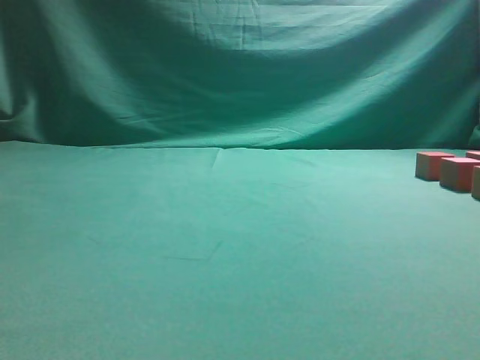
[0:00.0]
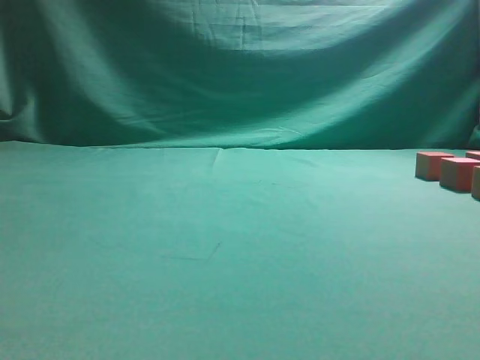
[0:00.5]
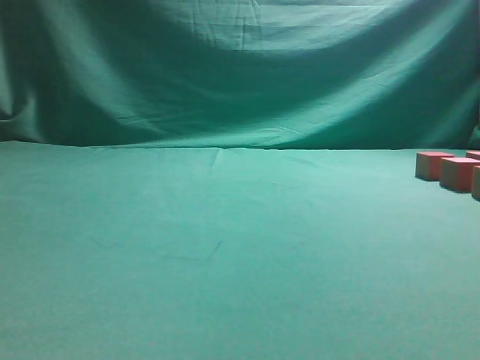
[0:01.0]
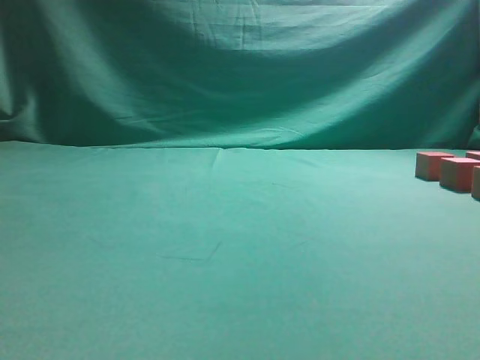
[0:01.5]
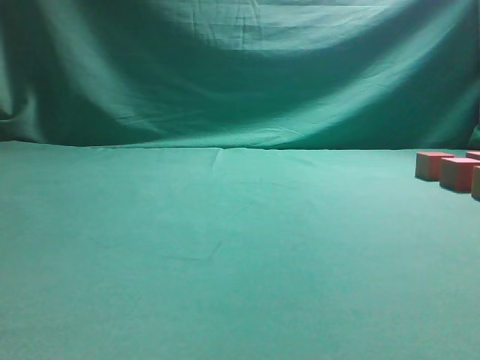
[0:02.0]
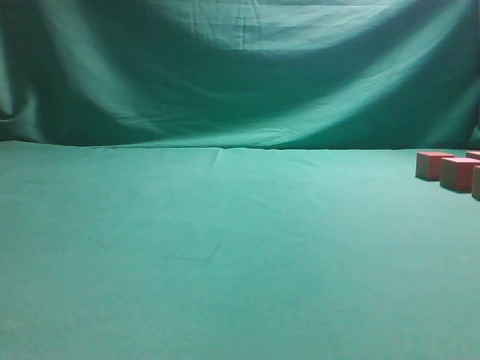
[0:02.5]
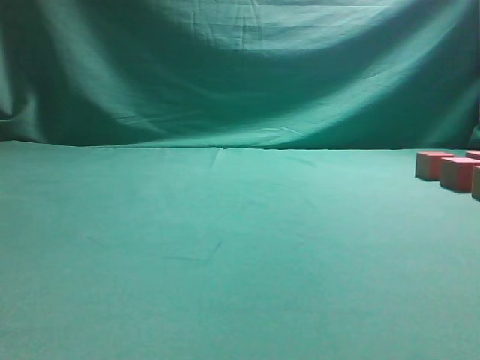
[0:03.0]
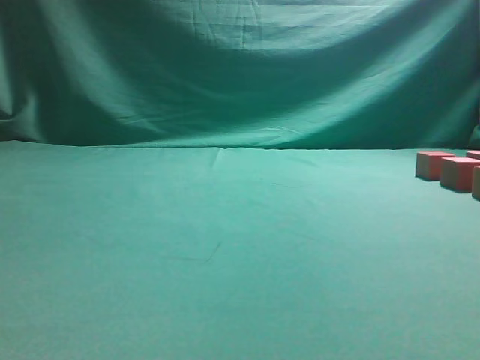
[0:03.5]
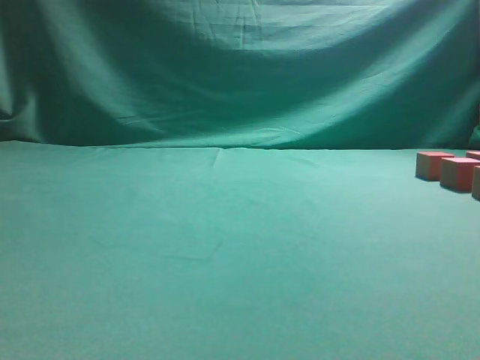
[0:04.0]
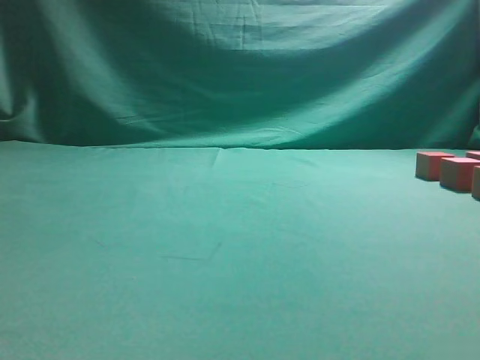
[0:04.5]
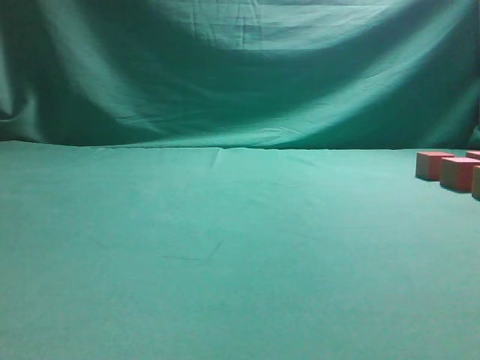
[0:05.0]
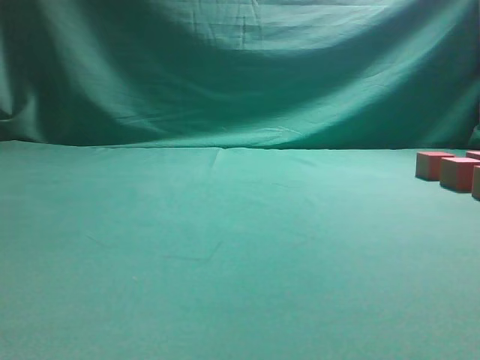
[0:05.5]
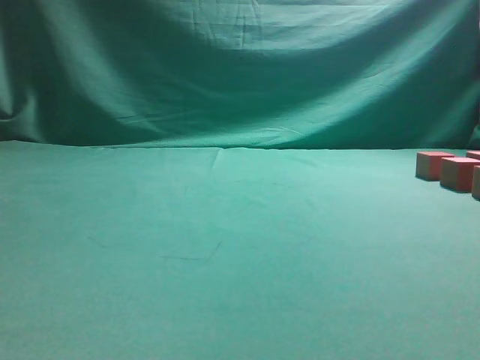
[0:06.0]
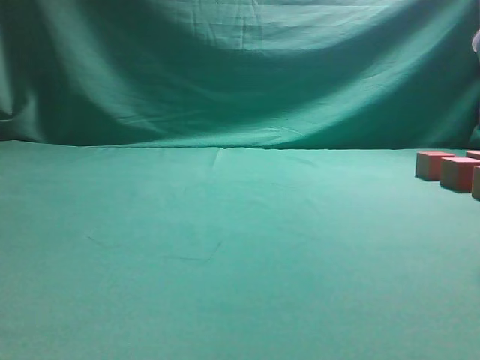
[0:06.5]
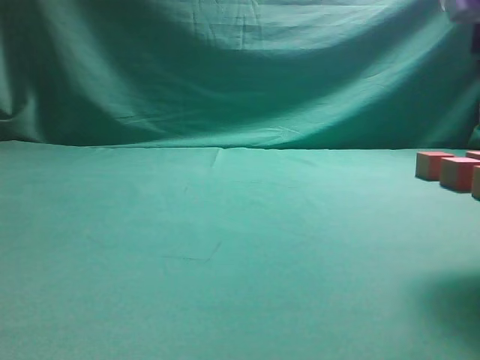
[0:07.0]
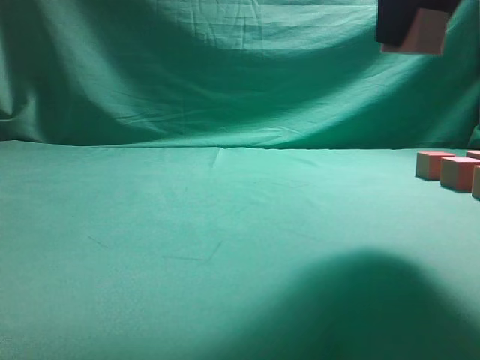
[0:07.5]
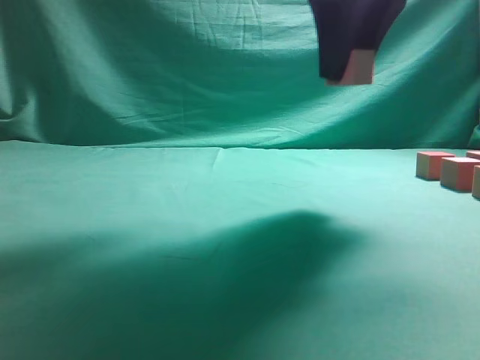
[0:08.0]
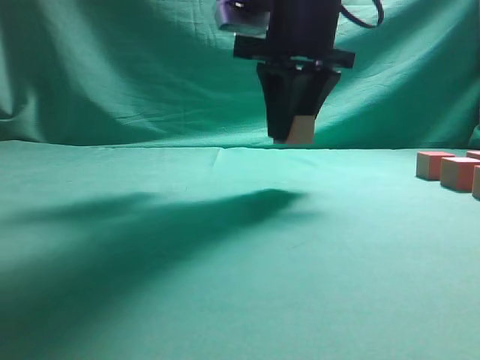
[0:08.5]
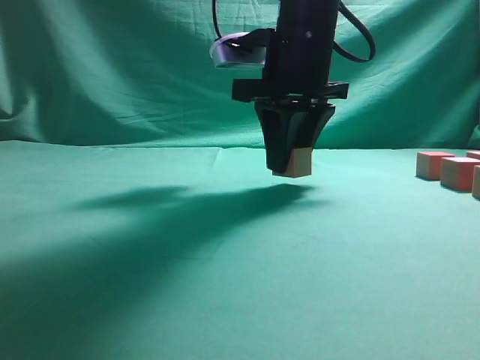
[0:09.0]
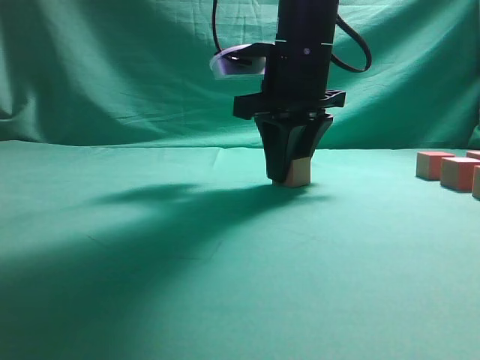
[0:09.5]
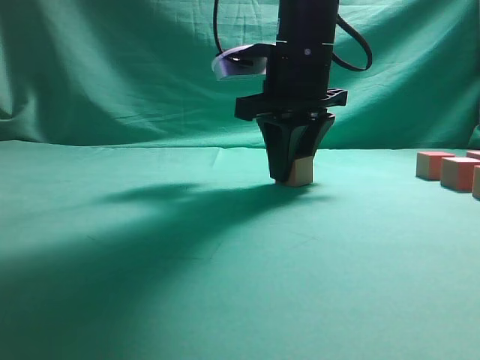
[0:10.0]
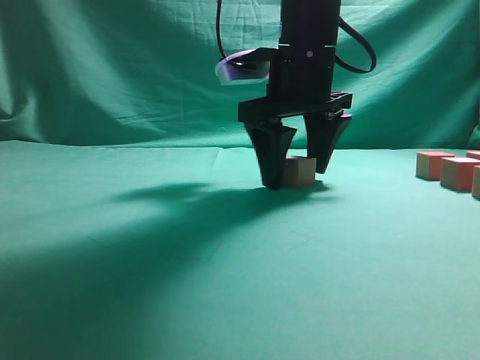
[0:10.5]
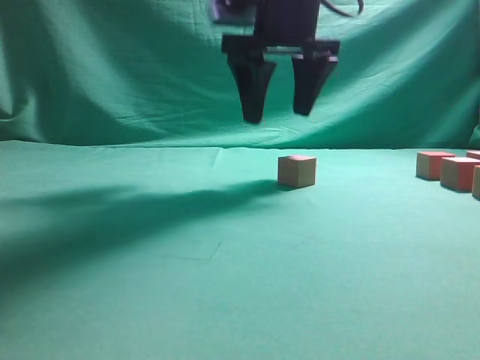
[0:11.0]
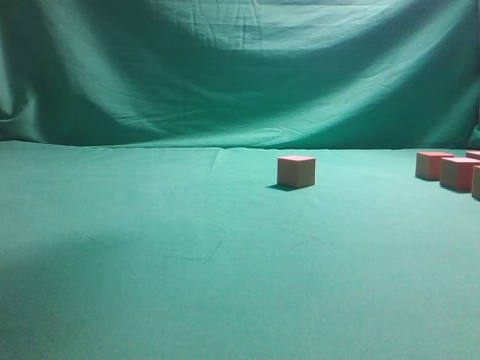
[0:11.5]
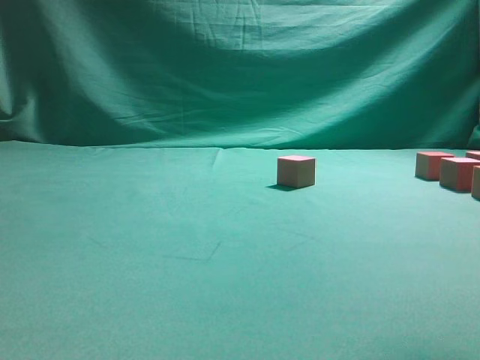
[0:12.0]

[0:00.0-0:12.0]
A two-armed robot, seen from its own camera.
Task of the whole recording: pick up the multiple cubes in two columns one by one and place them in another position on the table.
Step, 0:07.5 to 0:11.0: Place the block at the correct position to assemble the letter S.
0:06.0 to 0:08.0: The right gripper moves to the left, forward and upward, about 20 cm, and closes.
0:08.0 to 0:10.0: The right gripper heads downward and forward, covering about 10 cm.
0:10.0 to 0:12.0: The right gripper moves upward, to the right and backward, approximately 25 cm, and opens up.

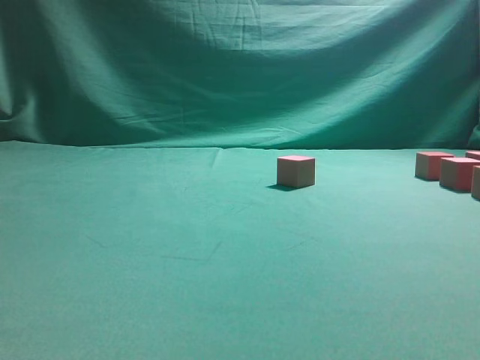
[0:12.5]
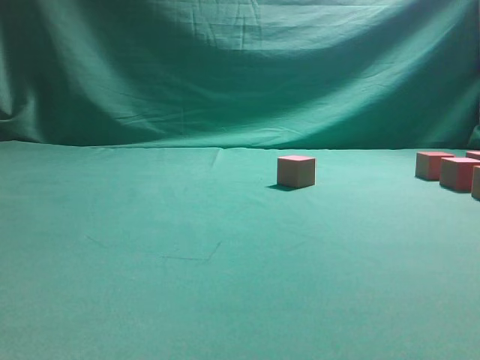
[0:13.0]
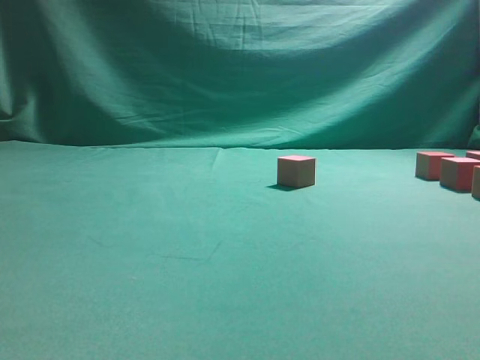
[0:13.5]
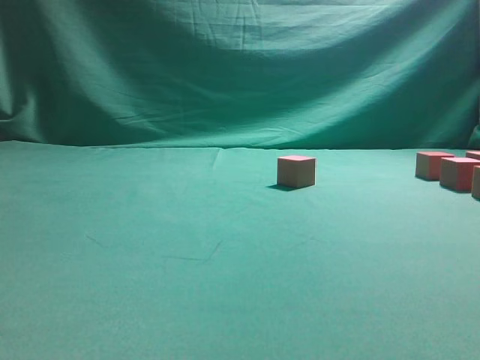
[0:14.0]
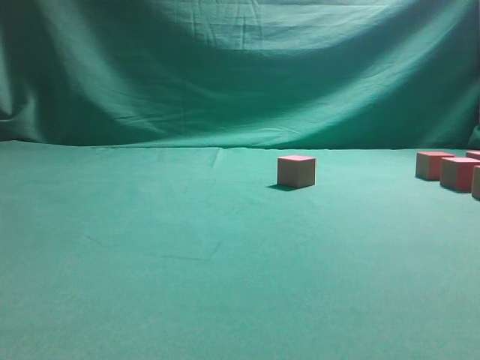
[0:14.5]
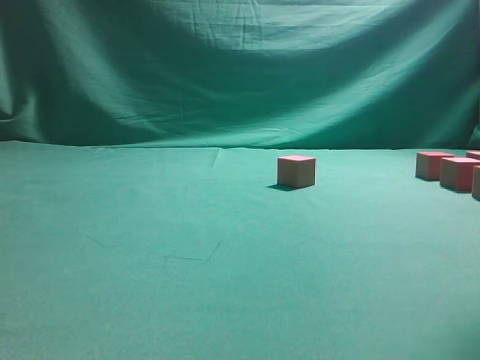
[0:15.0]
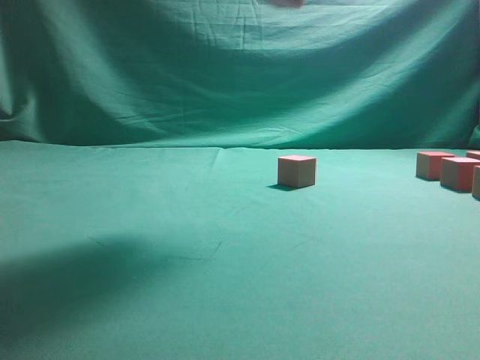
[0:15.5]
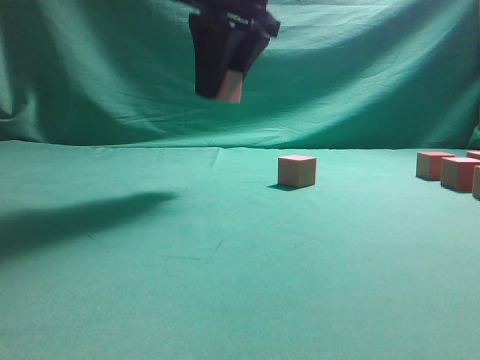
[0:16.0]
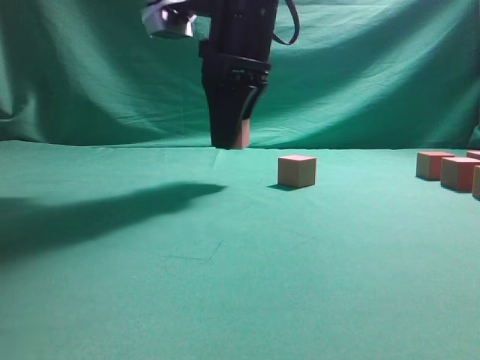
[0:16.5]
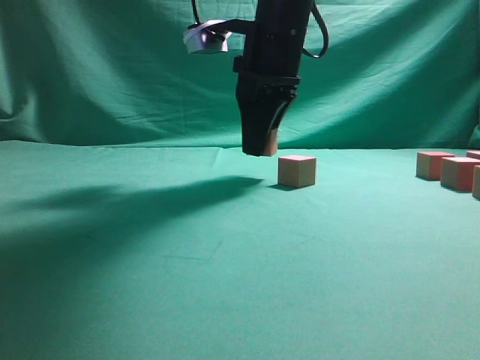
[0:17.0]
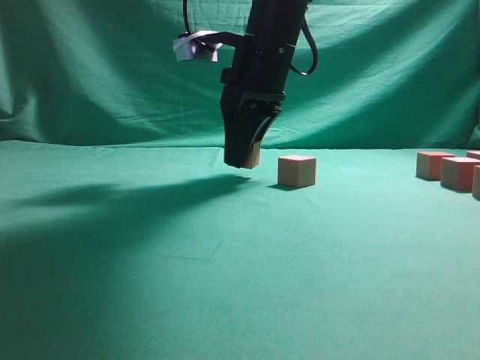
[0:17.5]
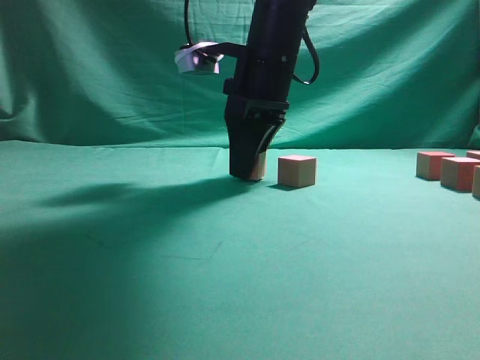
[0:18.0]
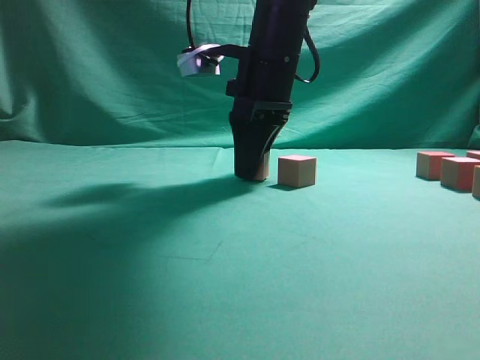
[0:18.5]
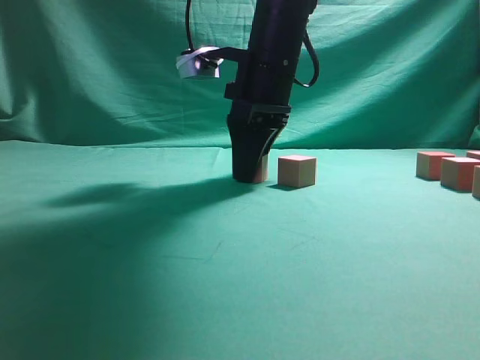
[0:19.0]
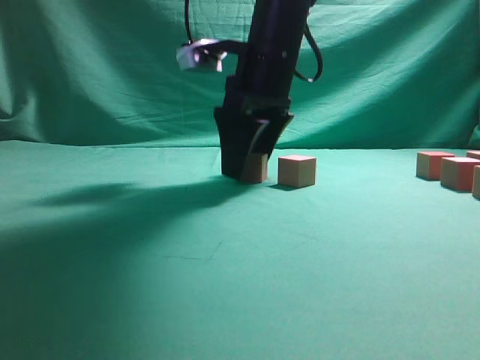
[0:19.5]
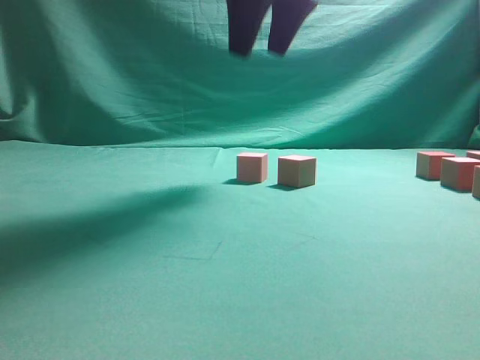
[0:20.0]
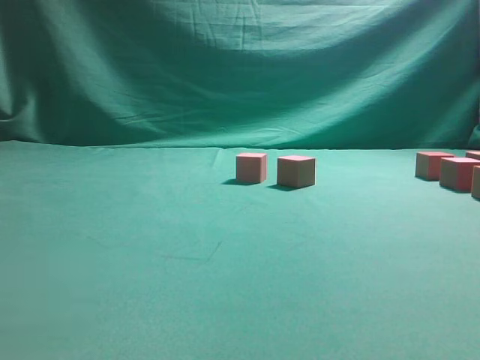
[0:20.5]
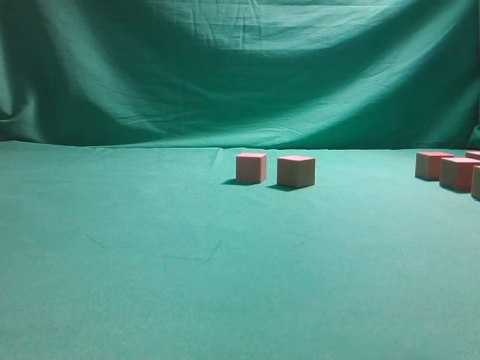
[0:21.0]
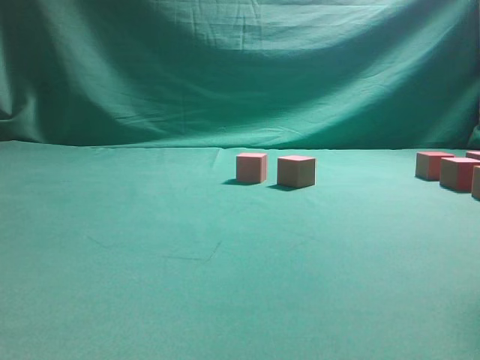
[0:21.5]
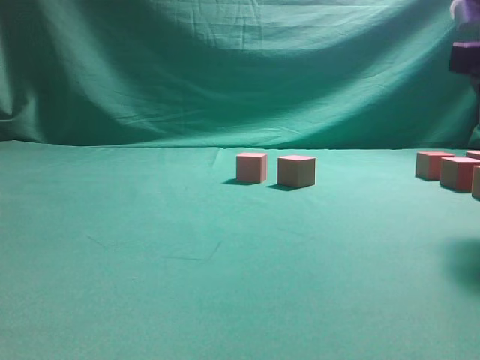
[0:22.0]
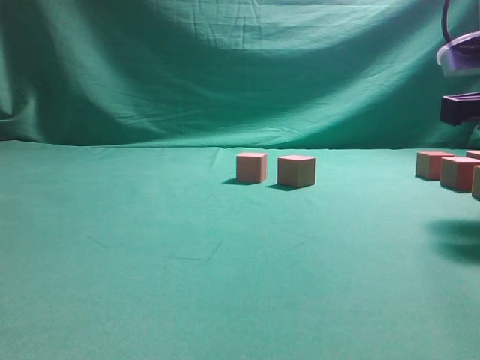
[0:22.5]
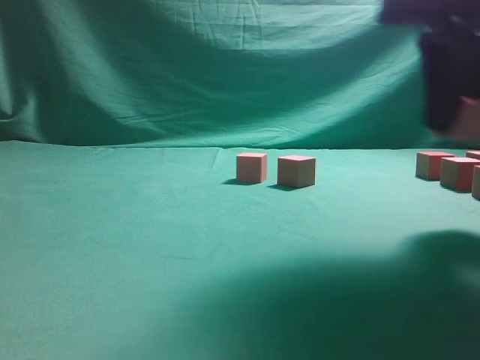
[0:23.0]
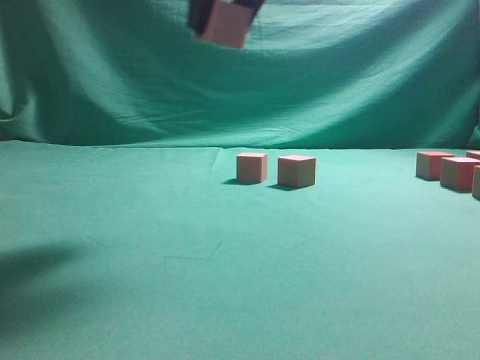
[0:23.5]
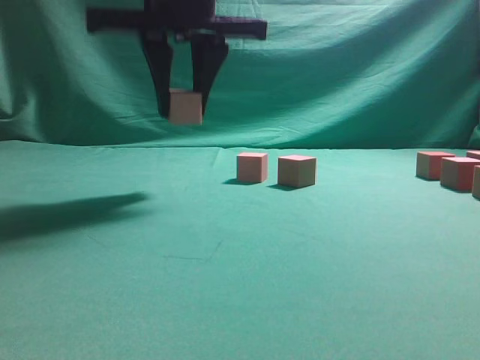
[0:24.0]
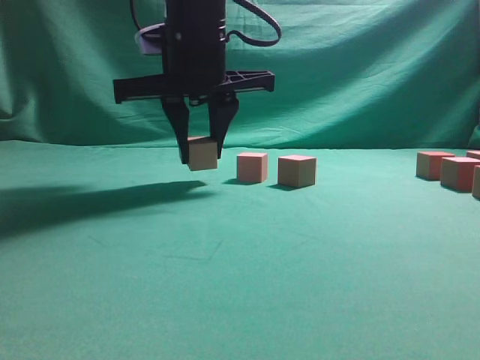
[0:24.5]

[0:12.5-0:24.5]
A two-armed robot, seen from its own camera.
Task of the whole recording: pick up the multiple cubes in two columns one by one and place them in another position on the table.
Step, 0:15.5 to 0:19.5: Place the block at the correct position to assemble the letter S.
Step, 0:20.0 to 0:22.5: Pick up the block on the table.
0:14.5 to 0:16.5: The right gripper shifts approximately 35 cm to the left and forward.
0:16.5 to 0:18.5: The right gripper shifts by some 5 cm.
0:18.5 to 0:20.5: The right gripper travels upward by about 25 cm, and opens its fingers.
0:20.5 to 0:22.5: The right gripper goes some 30 cm downward and to the right, and closes.
0:22.5 to 0:24.5: The right gripper travels to the left by approximately 25 cm.

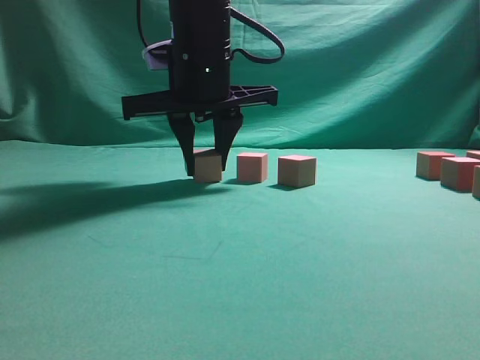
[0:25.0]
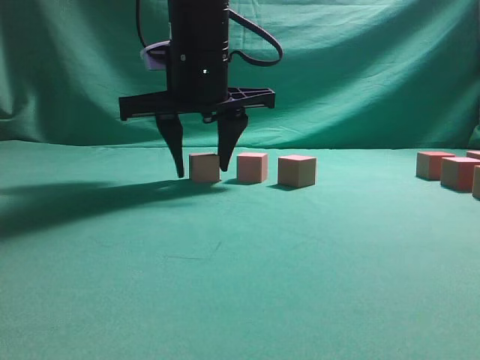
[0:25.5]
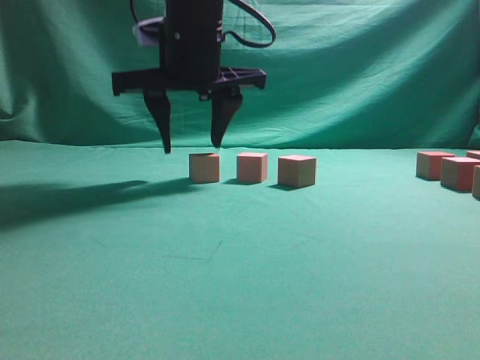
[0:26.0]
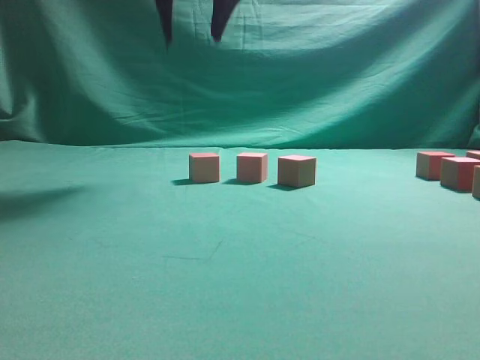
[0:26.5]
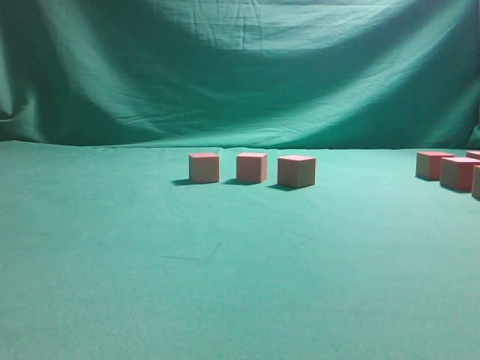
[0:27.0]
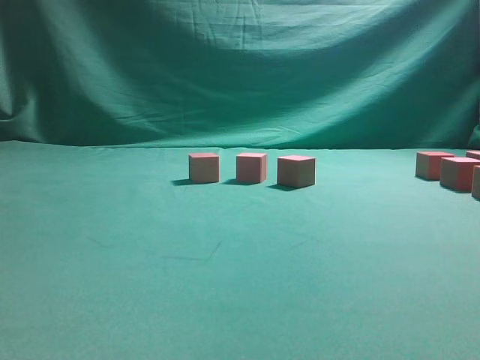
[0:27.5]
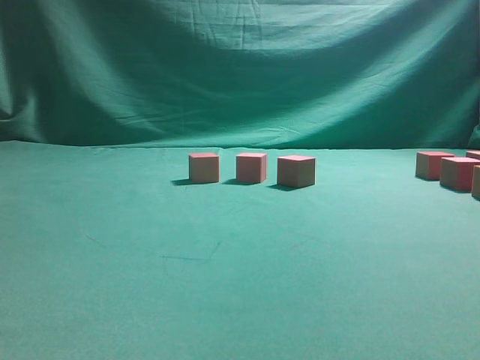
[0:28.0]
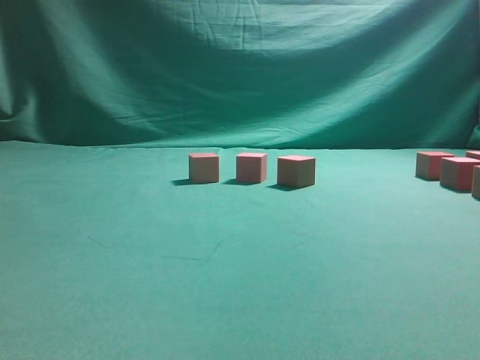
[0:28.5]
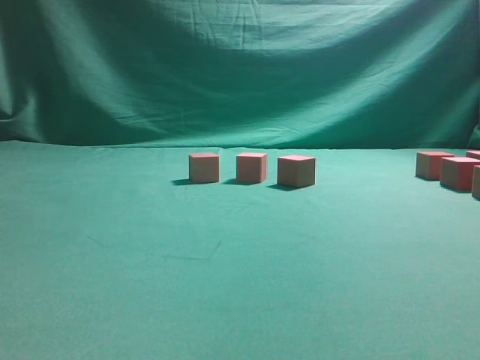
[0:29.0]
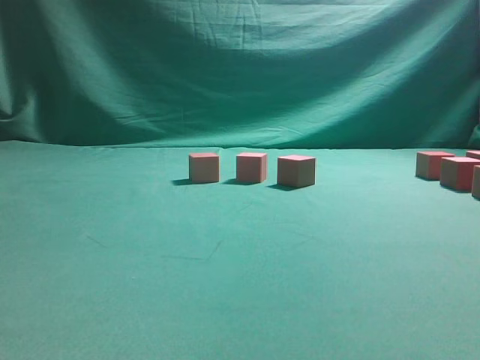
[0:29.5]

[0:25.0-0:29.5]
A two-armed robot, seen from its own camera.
Task of the whole recording: pick up the multiple cubes in two columns one by one and place them in another position on the table.
0:25.0 to 0:27.0: The right gripper travels upward by some 25 cm.
